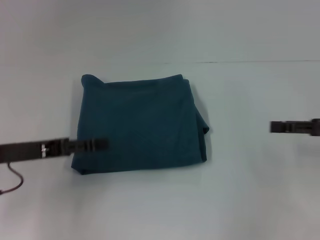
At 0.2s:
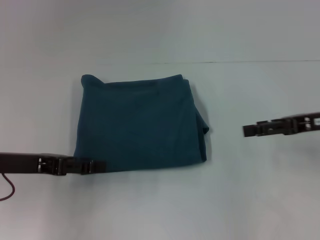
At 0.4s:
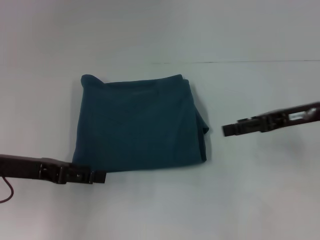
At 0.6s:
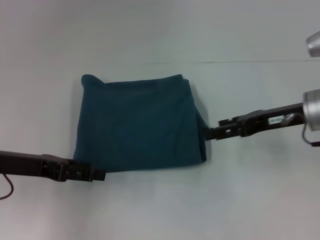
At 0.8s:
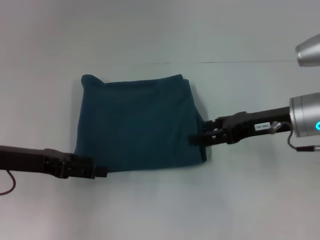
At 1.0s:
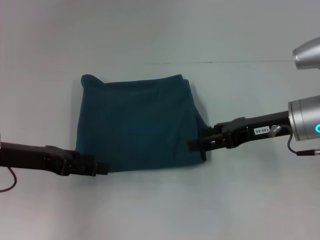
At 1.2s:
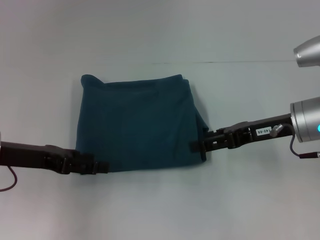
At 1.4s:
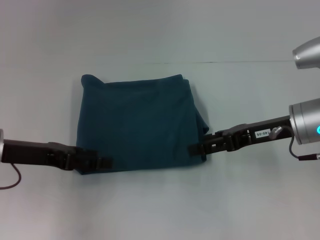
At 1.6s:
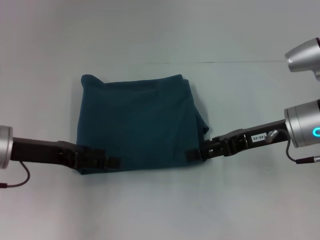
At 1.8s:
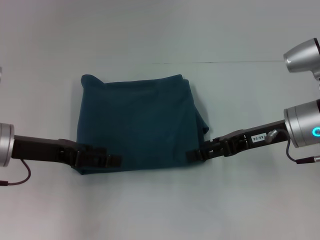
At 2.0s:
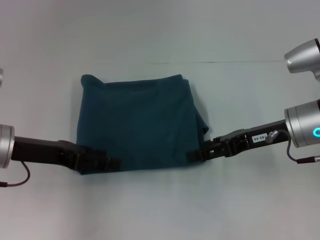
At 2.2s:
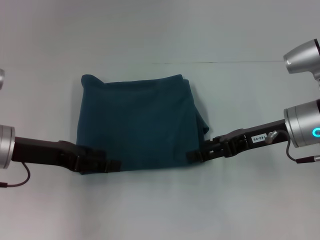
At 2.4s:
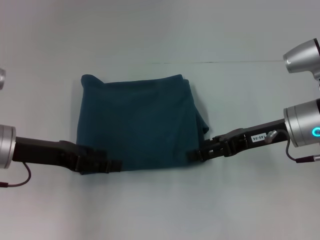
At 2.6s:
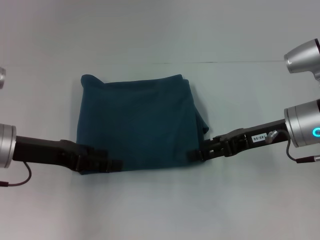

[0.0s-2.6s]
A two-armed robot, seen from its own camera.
0.0s to 1.2s: The right gripper moves to the left, roughly 10 cm.
1.2s to 2.6s: The grippers move only a little.

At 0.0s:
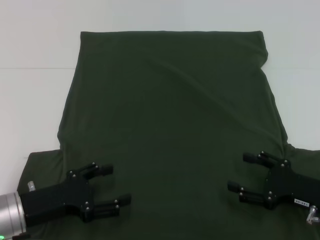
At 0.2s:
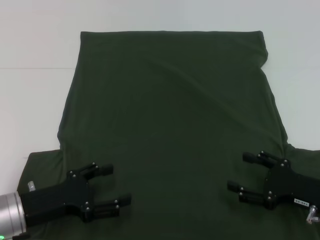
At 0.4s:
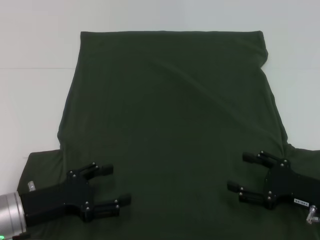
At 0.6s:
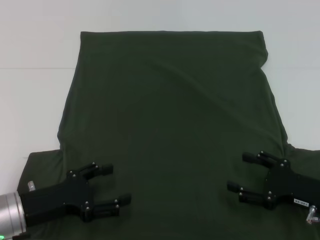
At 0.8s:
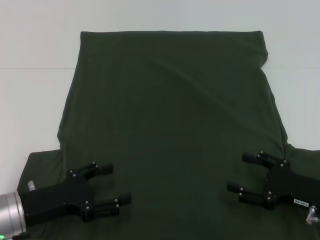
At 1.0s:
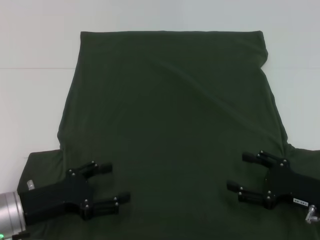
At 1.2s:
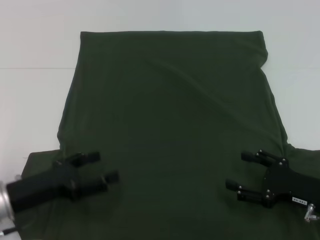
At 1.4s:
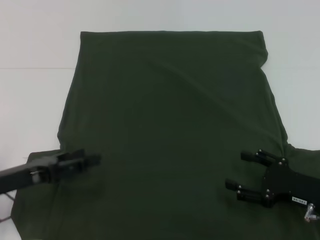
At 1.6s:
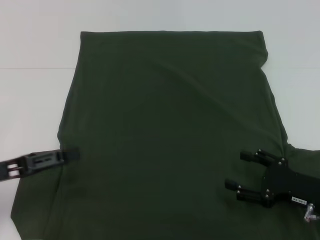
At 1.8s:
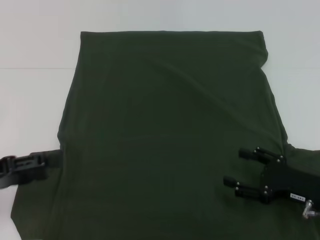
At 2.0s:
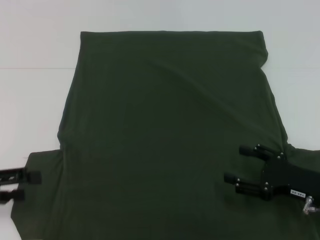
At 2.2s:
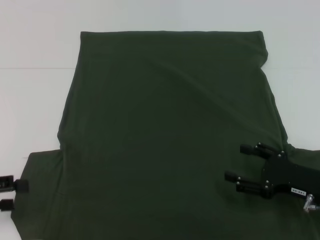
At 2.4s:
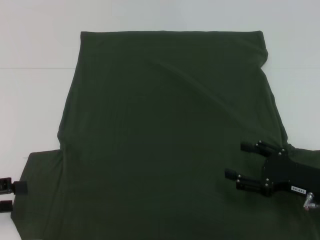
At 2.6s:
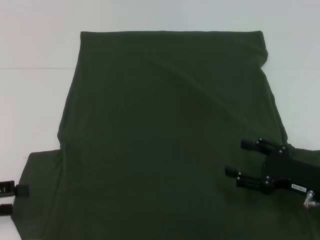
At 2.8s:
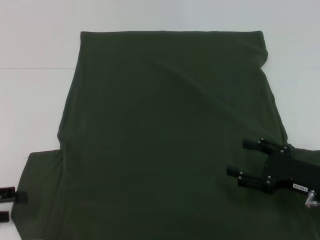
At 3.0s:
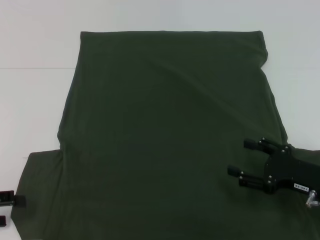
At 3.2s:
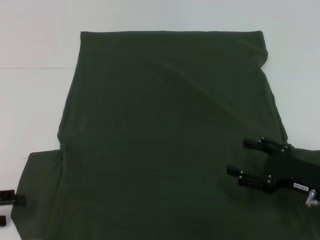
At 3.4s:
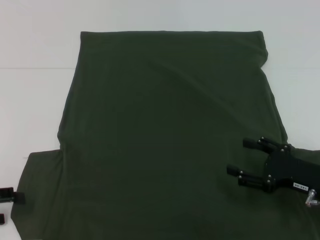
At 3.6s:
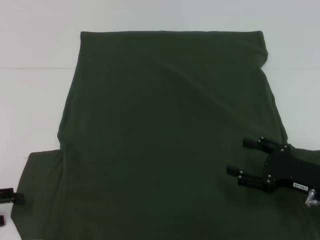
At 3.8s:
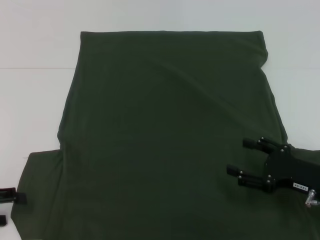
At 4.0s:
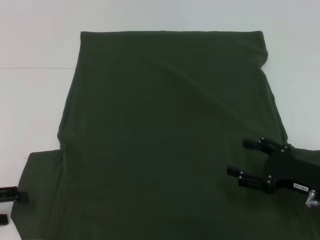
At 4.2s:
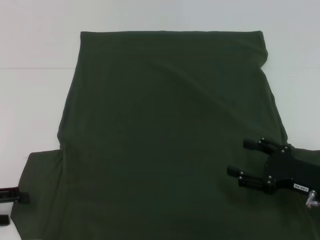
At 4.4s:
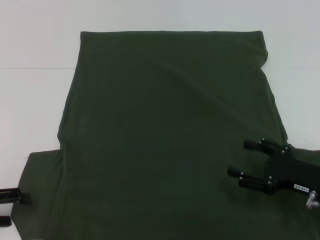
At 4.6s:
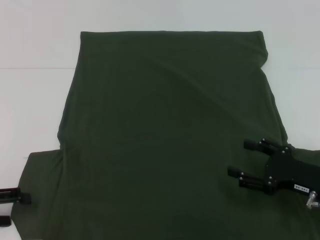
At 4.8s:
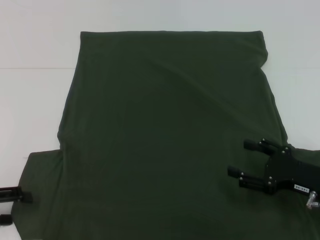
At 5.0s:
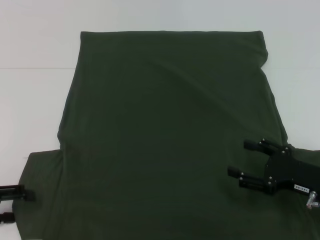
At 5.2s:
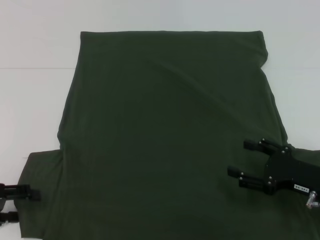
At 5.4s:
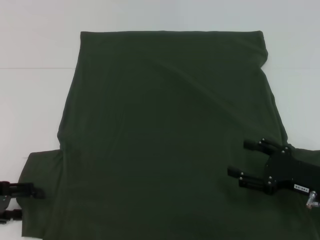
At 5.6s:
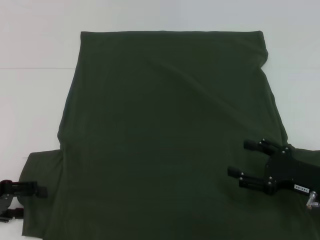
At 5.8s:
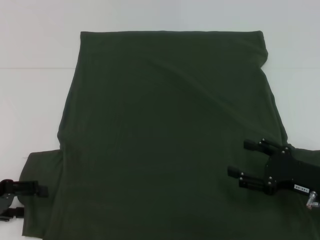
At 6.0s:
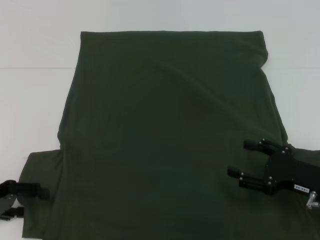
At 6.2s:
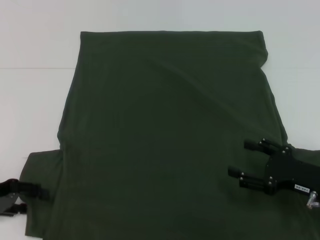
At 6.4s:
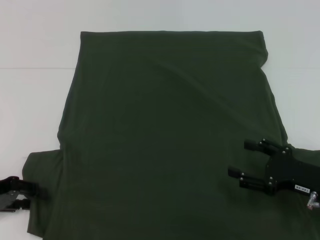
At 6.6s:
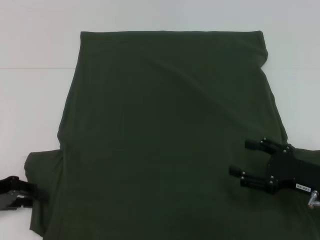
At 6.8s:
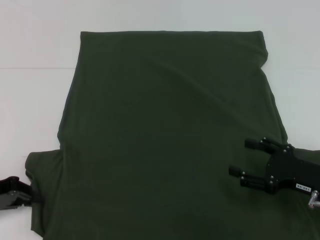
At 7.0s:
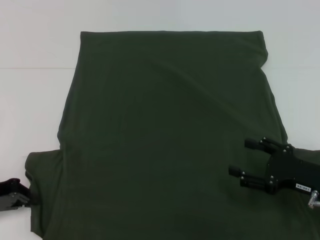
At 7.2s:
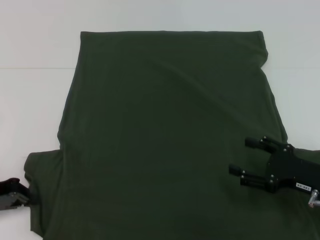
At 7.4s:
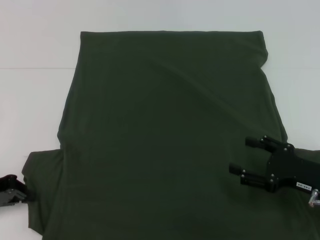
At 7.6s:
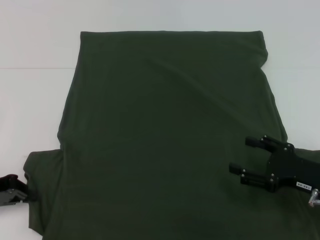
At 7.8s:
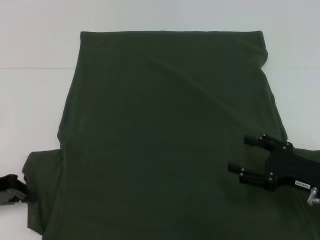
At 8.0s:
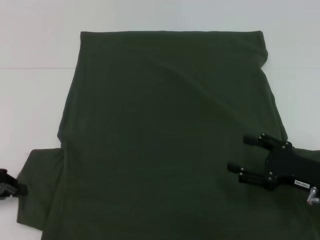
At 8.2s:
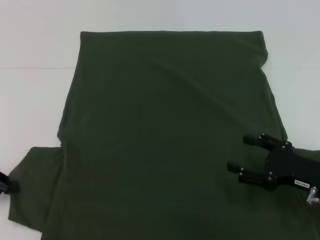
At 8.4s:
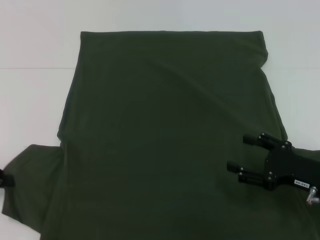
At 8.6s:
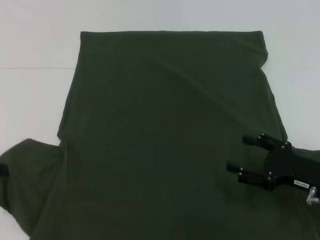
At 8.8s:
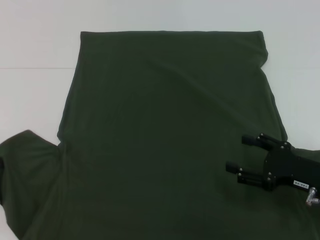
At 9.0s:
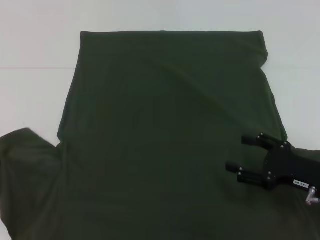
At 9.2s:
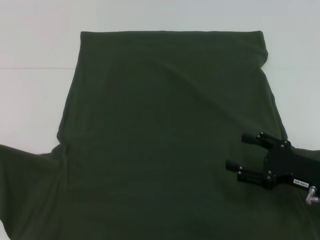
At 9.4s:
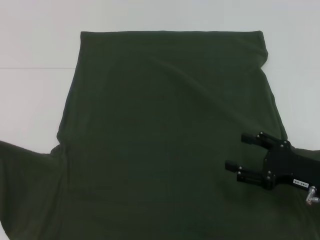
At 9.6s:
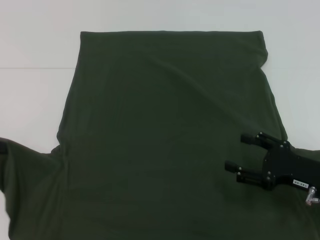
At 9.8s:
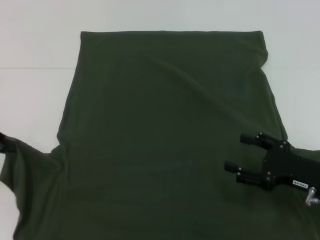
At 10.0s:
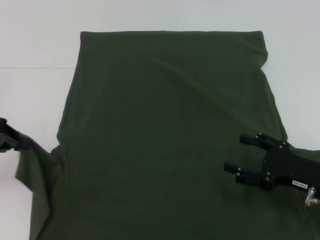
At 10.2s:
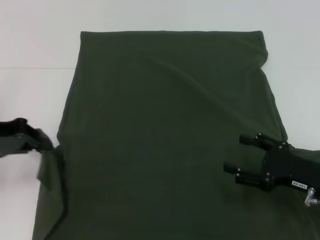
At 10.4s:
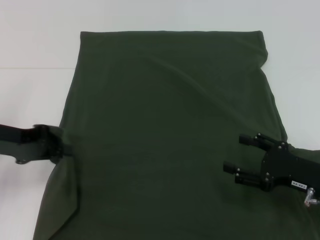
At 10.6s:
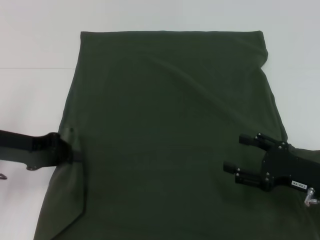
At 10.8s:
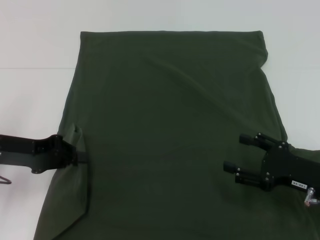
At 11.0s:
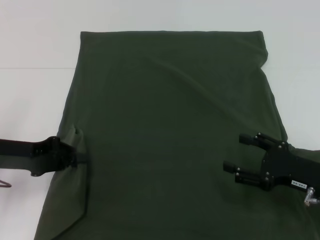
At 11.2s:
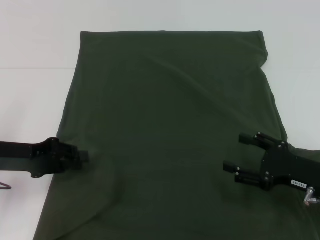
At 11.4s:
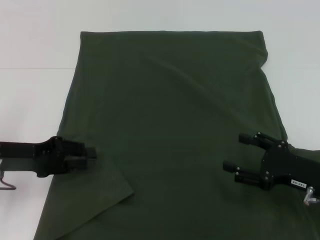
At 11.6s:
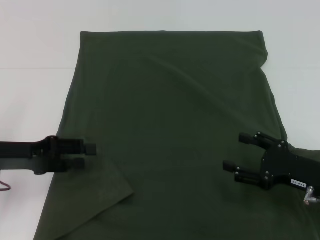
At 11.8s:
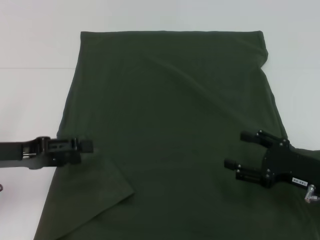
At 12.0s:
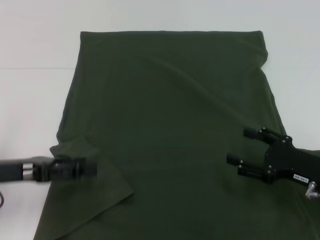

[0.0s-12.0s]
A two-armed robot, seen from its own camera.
Step, 0.0s to 11.2s: Fold the bottom left sleeve with your left hand.
0.0s to 1.6s: The left gripper is displaced to the left by some 5 cm.
1.6s to 3.0s: The left gripper heads to the left, covering approximately 5 cm.
4.4s to 6.0s: The grippers make only small movements.
6.0s to 7.6s: The left gripper closes its fingers.
7.6s to 9.0s: The left gripper shifts approximately 5 cm upward.
9.0s to 10.4s: The left gripper shifts some 10 cm to the right.
10.4s to 12.0s: The left gripper travels backward by approximately 5 cm, and opens up.

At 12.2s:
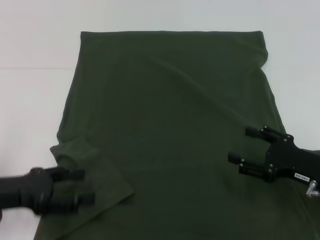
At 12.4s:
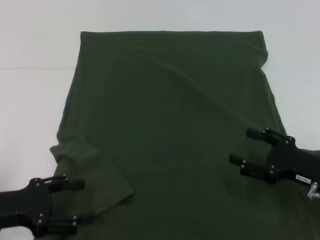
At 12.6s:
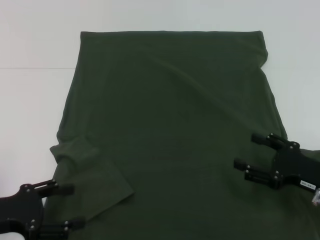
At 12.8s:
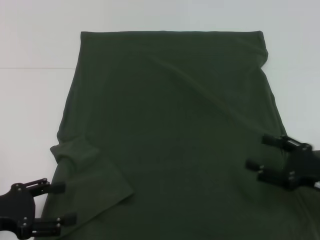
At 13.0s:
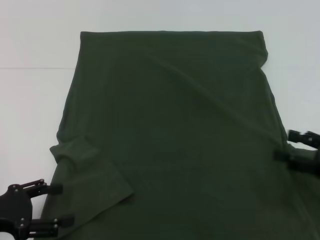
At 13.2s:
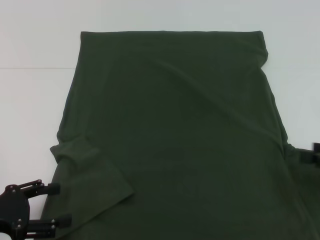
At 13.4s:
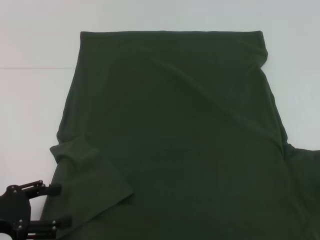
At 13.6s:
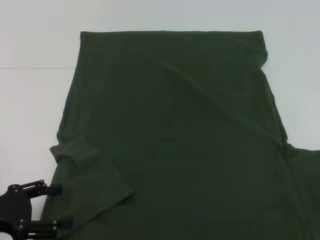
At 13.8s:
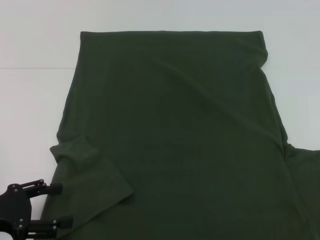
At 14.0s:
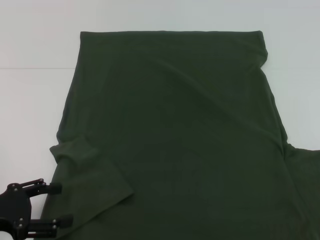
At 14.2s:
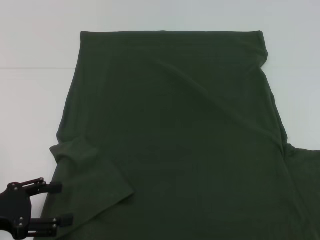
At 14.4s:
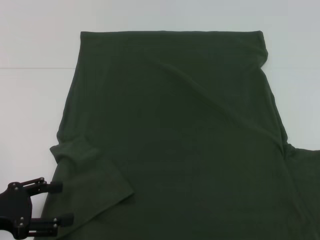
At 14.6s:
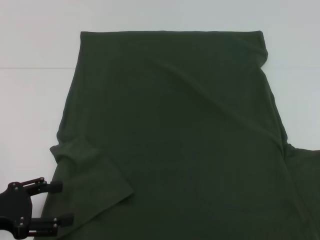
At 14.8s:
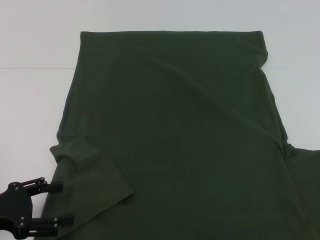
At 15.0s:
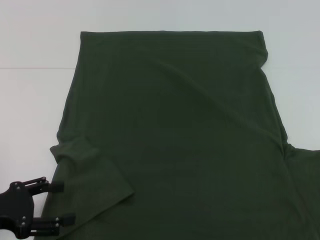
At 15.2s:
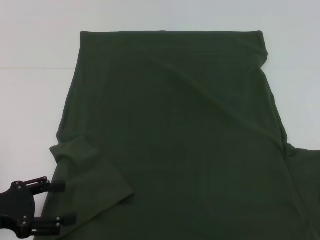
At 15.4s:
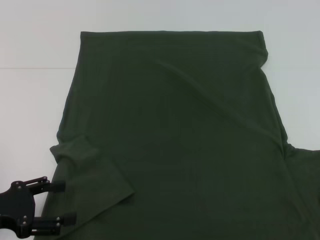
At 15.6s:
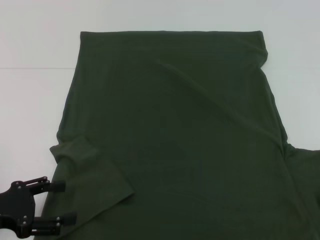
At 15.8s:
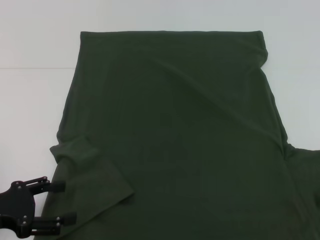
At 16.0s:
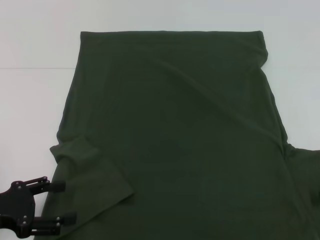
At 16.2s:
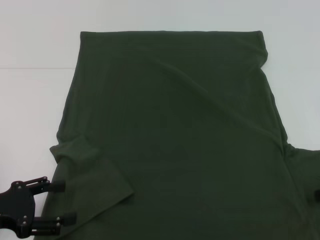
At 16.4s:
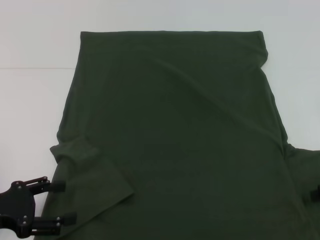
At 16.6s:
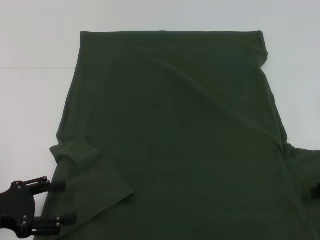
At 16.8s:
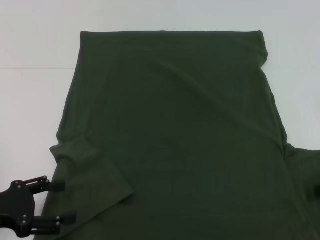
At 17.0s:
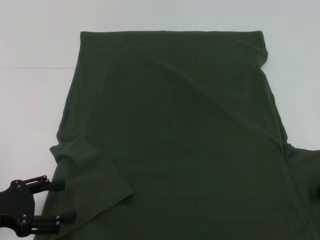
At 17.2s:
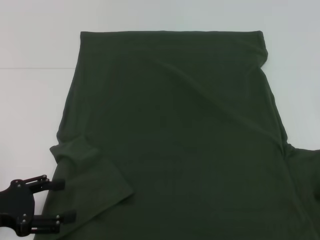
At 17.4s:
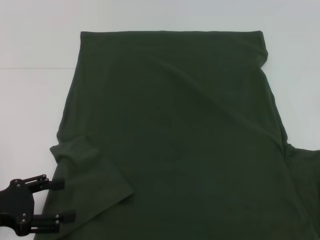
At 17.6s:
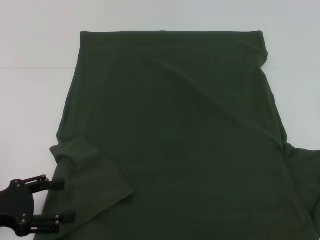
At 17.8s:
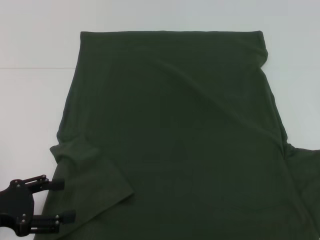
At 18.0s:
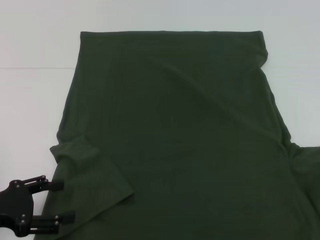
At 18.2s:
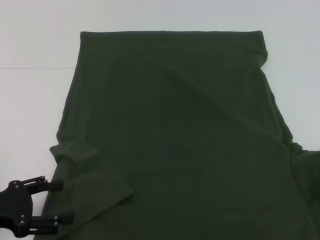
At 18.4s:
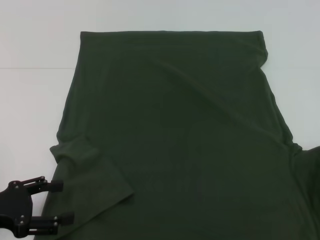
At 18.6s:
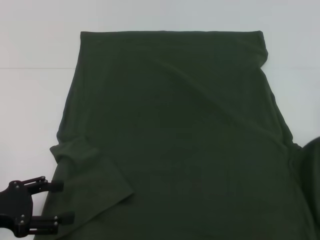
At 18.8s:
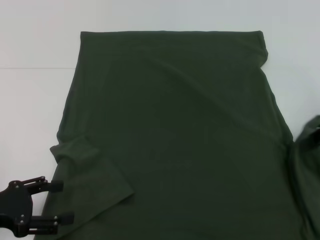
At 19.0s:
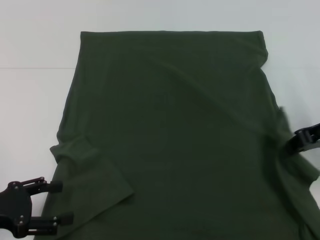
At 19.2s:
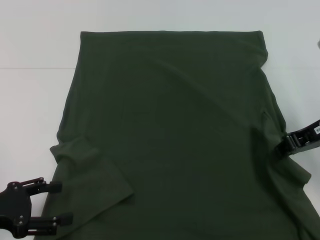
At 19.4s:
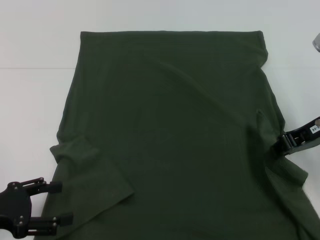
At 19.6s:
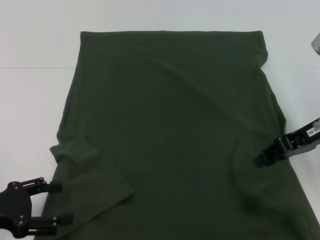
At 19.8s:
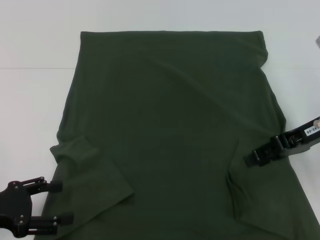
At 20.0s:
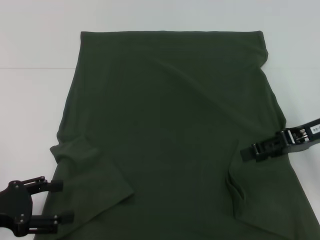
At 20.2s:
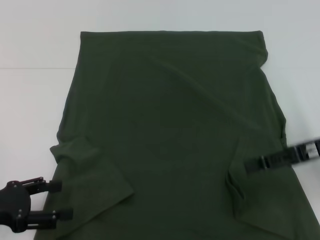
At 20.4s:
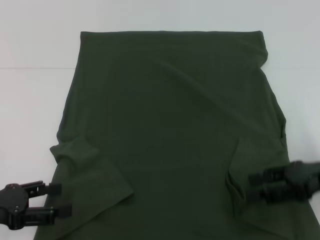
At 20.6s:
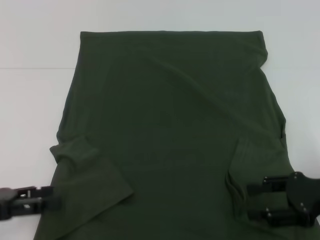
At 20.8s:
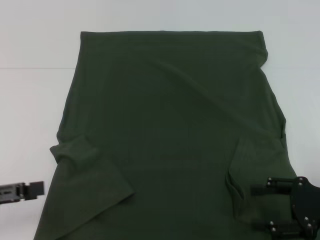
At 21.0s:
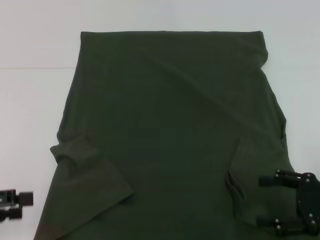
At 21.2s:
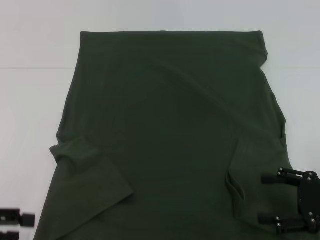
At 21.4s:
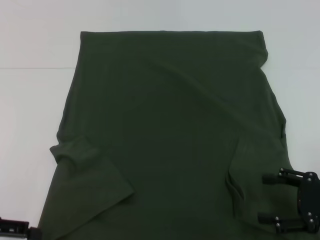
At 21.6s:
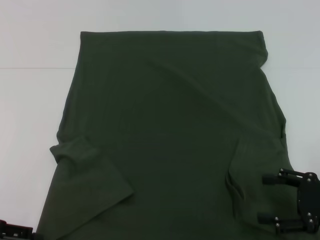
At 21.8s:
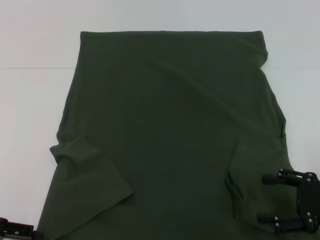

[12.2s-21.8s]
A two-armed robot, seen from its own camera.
Step, 12.2s to 19.6s: Fold the bottom right sleeve with your right hand.
12.2s to 13.8s: The right gripper heads to the right and upward, covering roughly 15 cm.
17.0s to 18.6s: The right gripper is displaced upward by about 5 cm, and closes.
18.6s to 20.2s: The right gripper goes about 5 cm to the left, and opens its fingers.
20.2s to 21.8s: The right gripper goes roughly 10 cm backward and downward.
